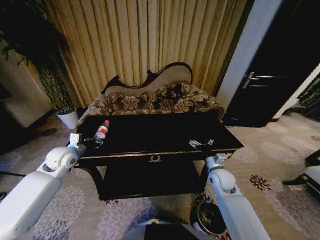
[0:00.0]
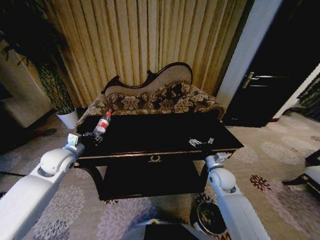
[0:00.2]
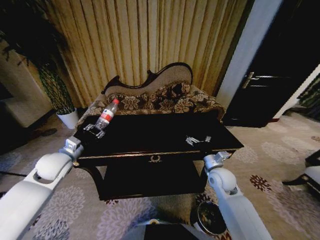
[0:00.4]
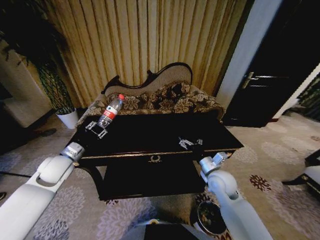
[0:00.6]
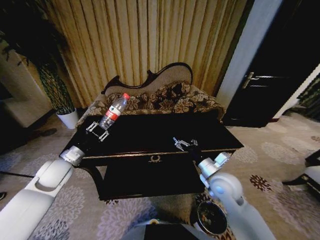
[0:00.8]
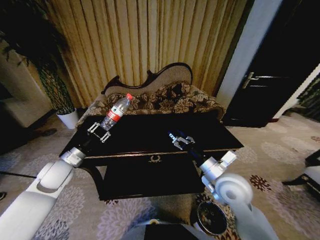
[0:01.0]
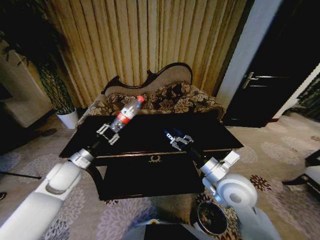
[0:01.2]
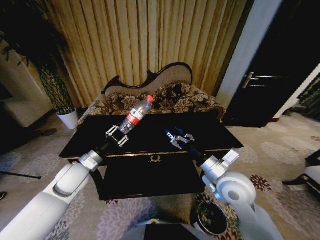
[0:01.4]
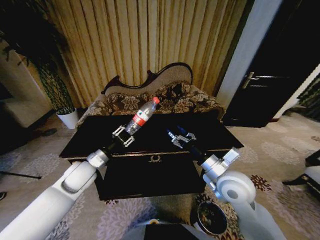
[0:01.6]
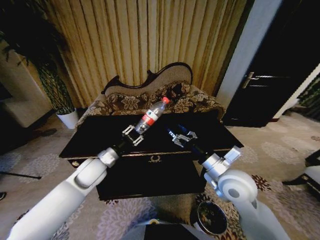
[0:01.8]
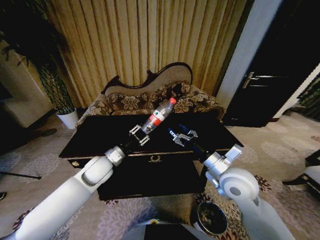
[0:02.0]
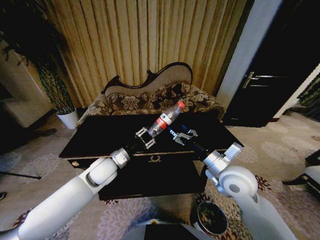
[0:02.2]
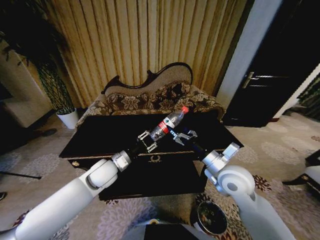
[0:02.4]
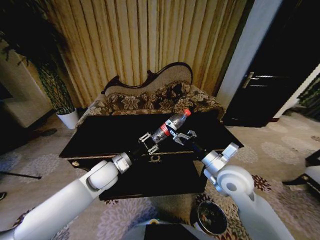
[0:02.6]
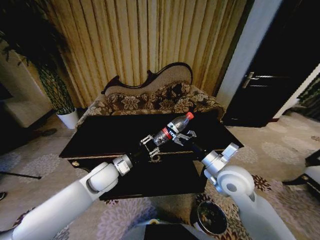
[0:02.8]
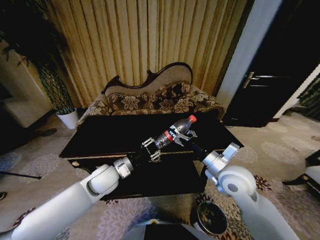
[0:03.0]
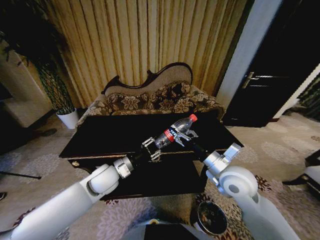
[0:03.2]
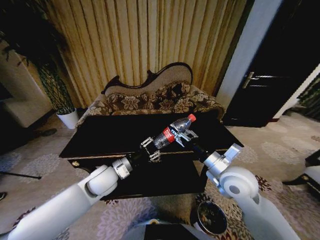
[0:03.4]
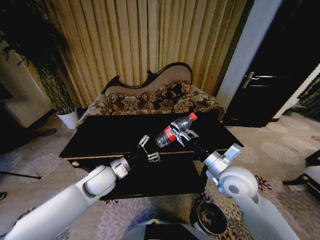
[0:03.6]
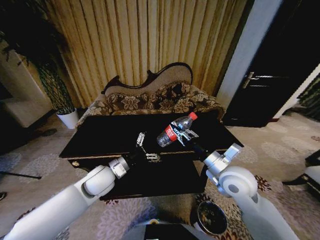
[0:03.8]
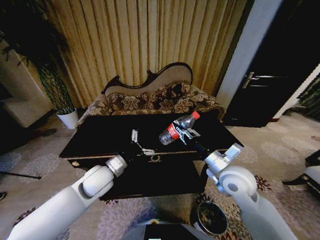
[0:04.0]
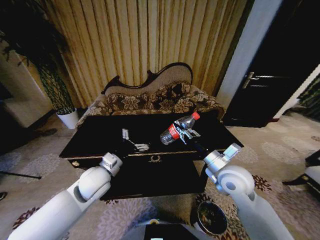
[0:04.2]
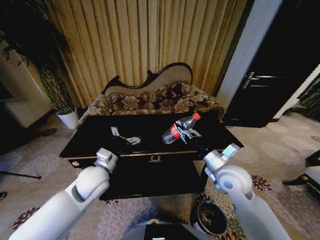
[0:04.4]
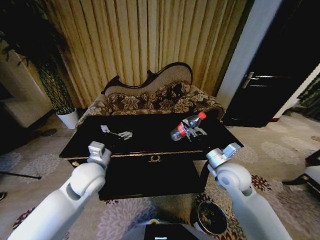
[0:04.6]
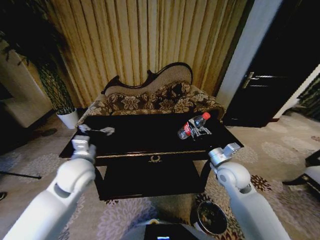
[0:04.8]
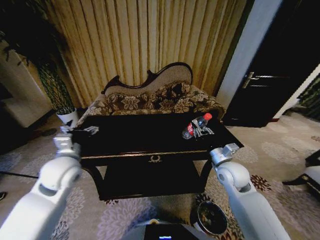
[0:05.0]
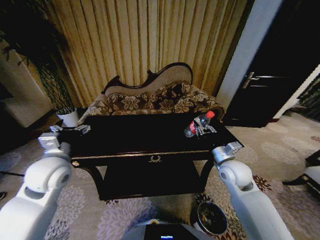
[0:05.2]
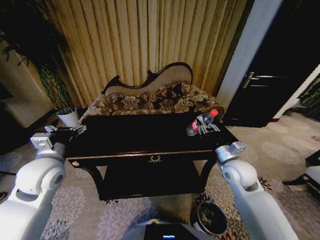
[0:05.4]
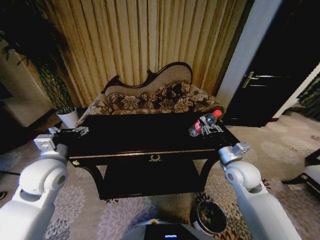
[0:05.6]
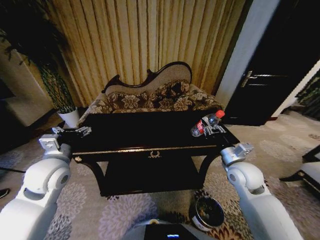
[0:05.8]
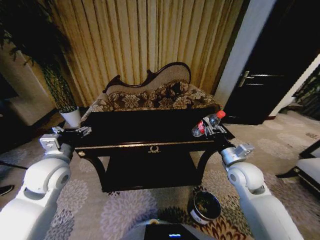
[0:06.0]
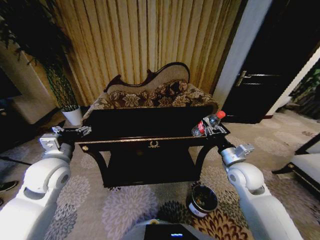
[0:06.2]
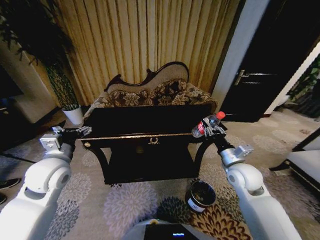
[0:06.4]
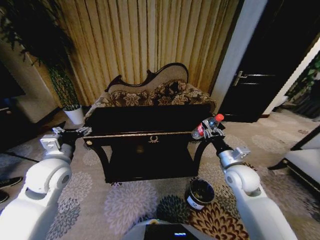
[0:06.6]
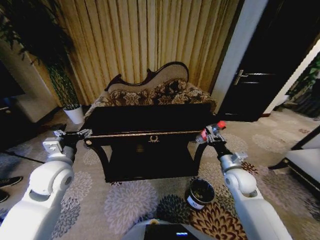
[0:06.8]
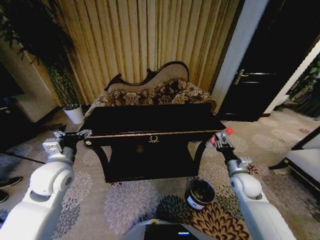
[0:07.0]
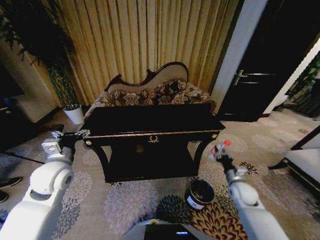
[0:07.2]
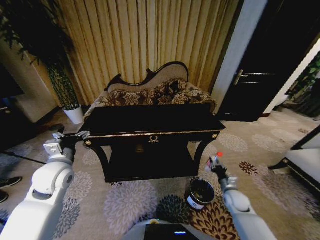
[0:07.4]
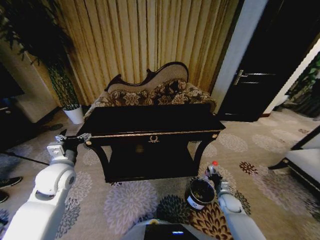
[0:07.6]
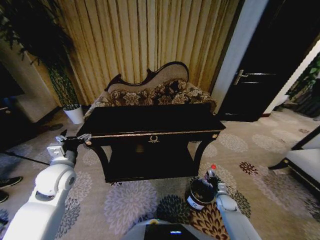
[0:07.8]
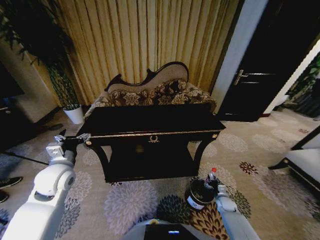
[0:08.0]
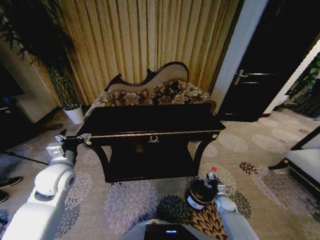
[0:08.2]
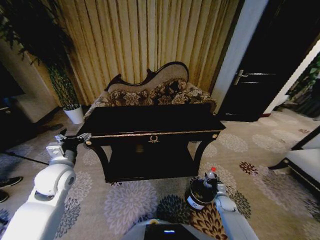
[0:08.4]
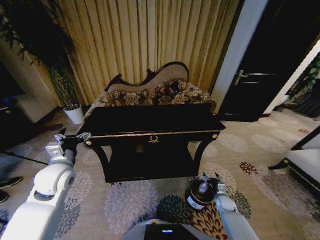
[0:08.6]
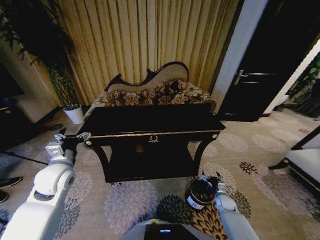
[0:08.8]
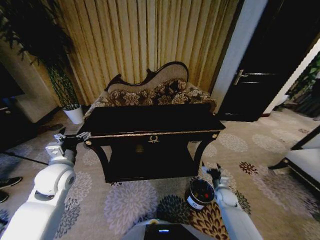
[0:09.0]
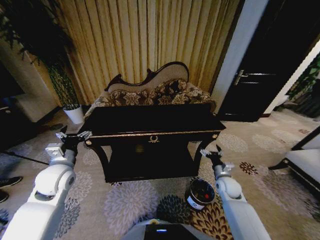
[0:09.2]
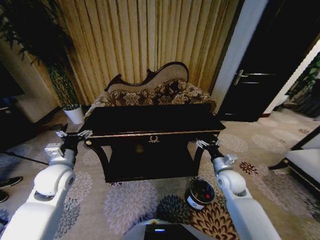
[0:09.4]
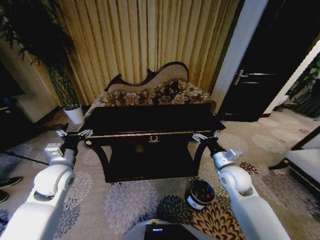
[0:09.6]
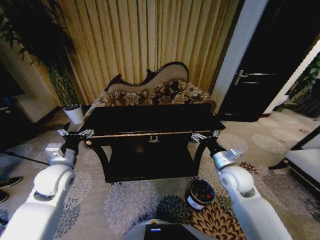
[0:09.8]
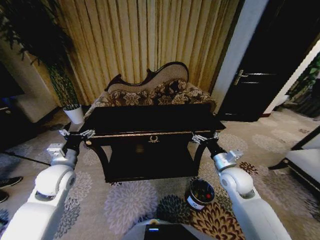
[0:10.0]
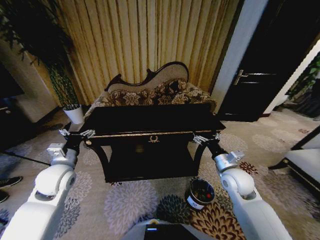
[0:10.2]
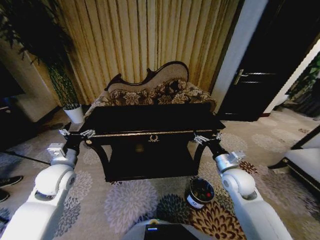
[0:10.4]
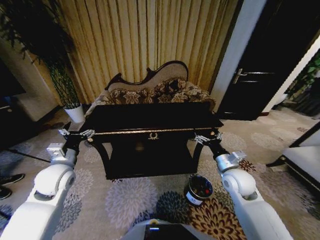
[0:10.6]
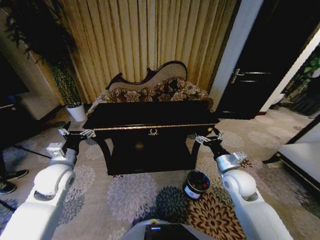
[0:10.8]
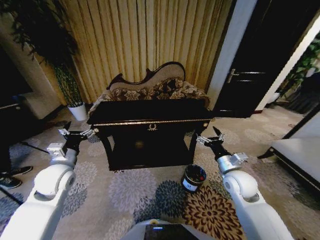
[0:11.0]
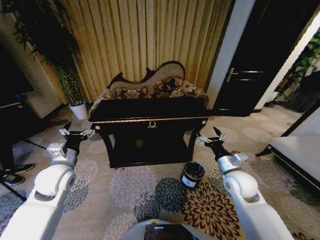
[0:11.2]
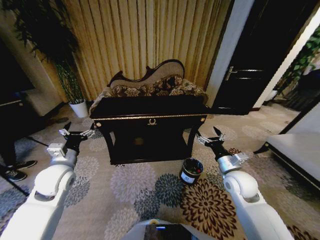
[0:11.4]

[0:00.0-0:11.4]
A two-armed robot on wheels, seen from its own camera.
Task of the whole recording: Move to the front of the table and place the trash on the table into the trash bin.
0:00.0 to 0:01.4: The left gripper goes about 10 cm to the right and backward, while the right gripper travels upward, backward and to the left by roughly 20 cm.
0:01.4 to 0:02.8: The left gripper moves to the right, some 10 cm.
0:02.8 to 0:04.2: The left gripper opens up. Meanwhile the right gripper closes.
0:04.2 to 0:05.6: The left gripper travels to the left and upward by some 15 cm. The right gripper moves to the right, some 5 cm.
0:05.6 to 0:07.2: The right gripper goes some 20 cm downward and to the right.
0:07.2 to 0:08.6: The right gripper heads downward, covering approximately 20 cm, and opens.
0:08.6 to 0:10.0: The right gripper is displaced upward by about 30 cm.

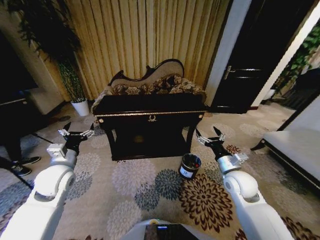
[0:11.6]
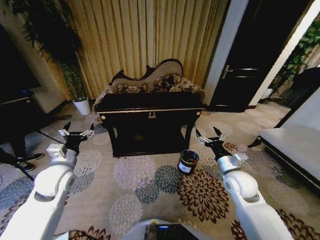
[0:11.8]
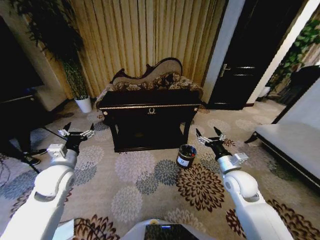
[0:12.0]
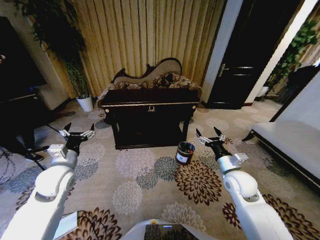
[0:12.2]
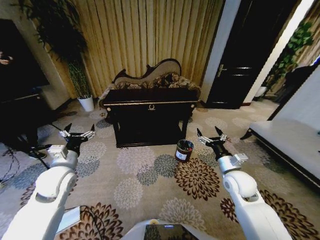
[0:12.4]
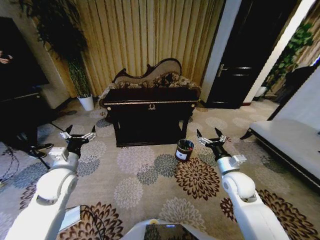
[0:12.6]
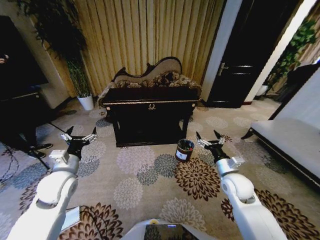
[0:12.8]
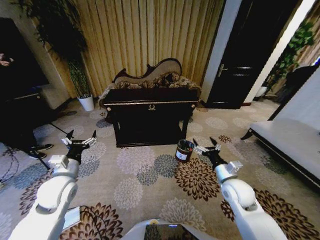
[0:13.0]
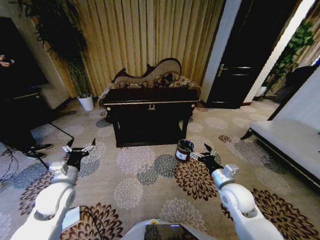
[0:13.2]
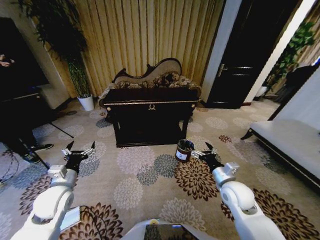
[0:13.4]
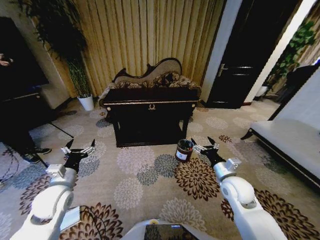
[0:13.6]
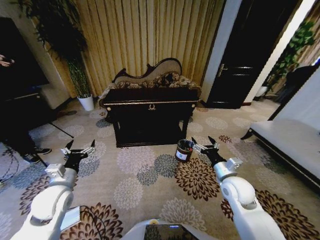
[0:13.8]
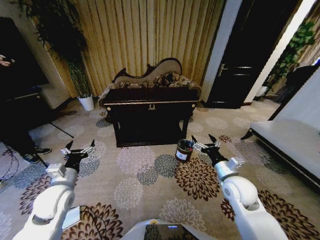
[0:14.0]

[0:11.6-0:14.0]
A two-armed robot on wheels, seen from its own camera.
Task of the whole recording: Move to the front of the table and place the trash on the table into the trash bin.
0:12.8 to 0:14.0: The grippers make only small movements.

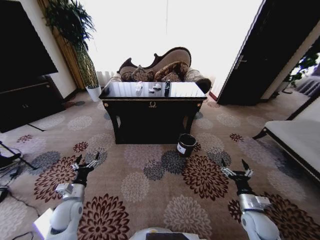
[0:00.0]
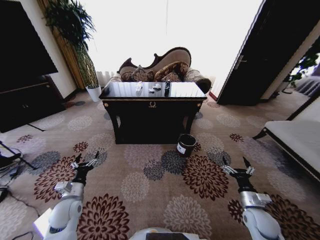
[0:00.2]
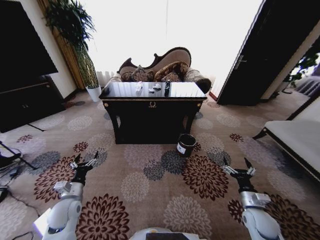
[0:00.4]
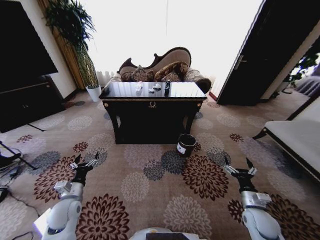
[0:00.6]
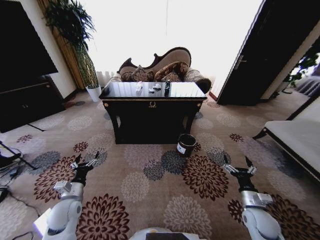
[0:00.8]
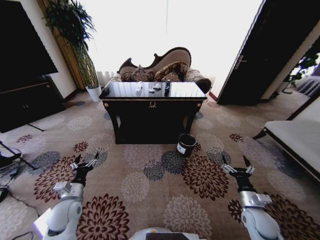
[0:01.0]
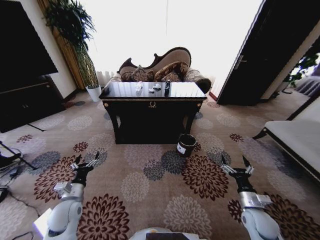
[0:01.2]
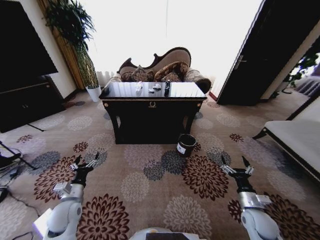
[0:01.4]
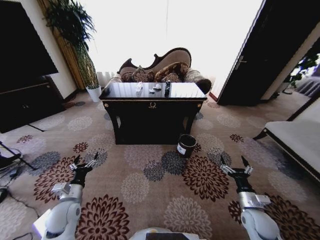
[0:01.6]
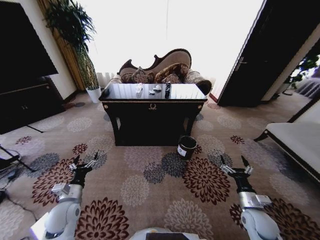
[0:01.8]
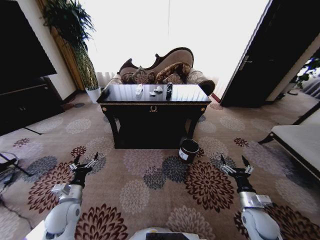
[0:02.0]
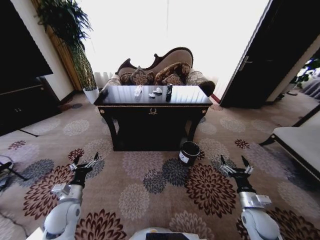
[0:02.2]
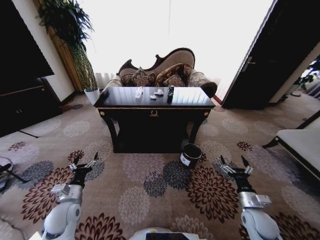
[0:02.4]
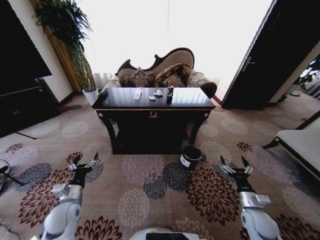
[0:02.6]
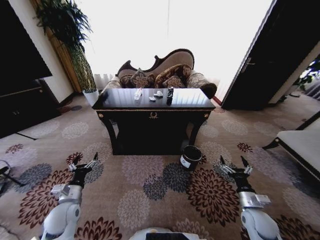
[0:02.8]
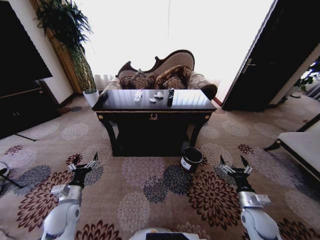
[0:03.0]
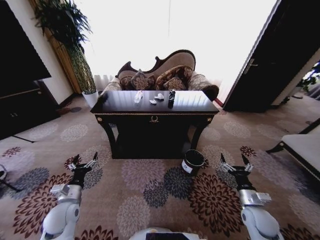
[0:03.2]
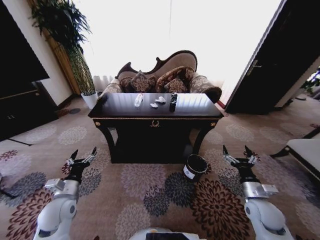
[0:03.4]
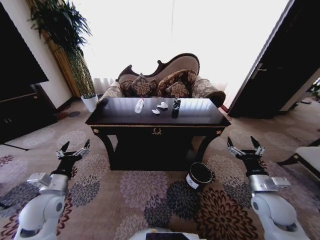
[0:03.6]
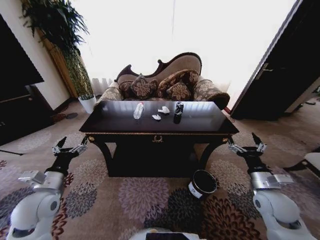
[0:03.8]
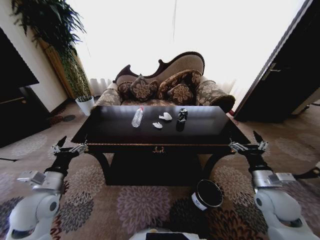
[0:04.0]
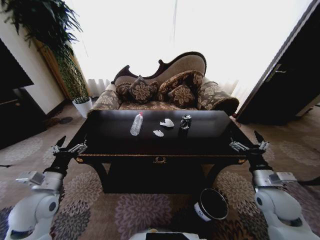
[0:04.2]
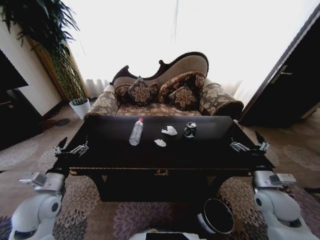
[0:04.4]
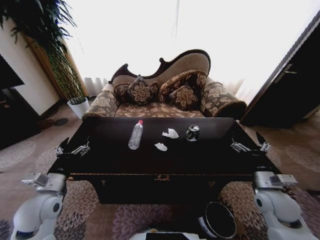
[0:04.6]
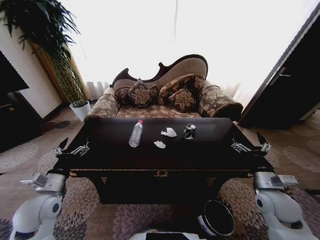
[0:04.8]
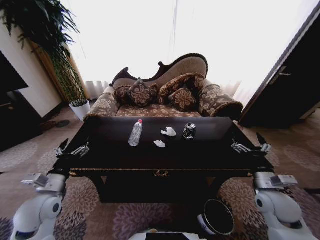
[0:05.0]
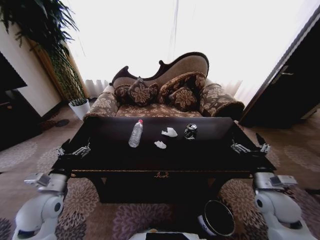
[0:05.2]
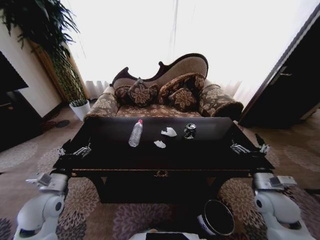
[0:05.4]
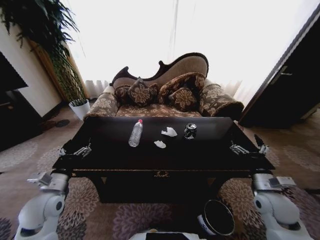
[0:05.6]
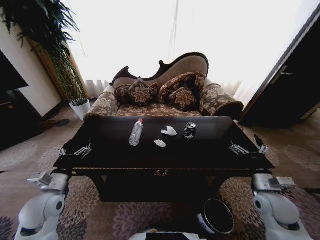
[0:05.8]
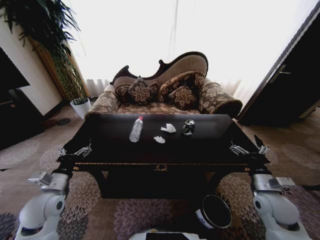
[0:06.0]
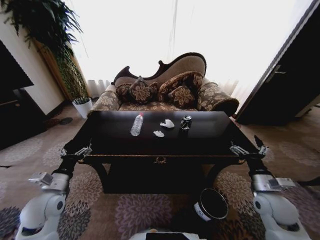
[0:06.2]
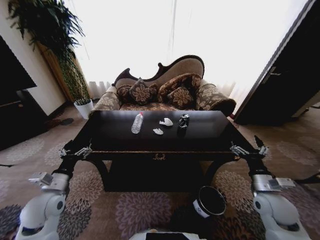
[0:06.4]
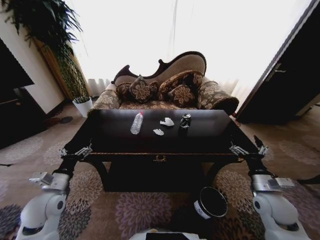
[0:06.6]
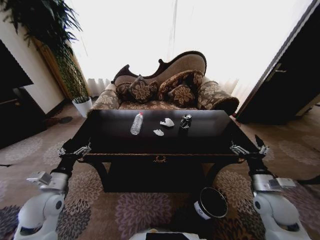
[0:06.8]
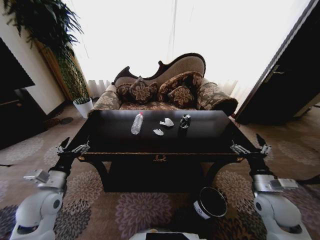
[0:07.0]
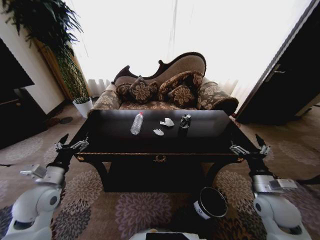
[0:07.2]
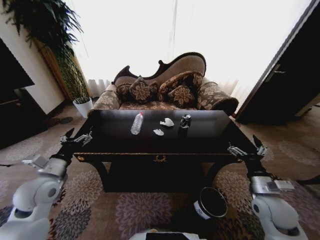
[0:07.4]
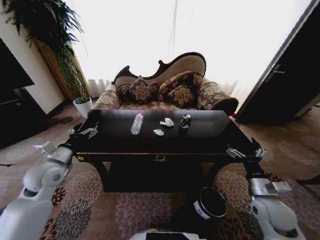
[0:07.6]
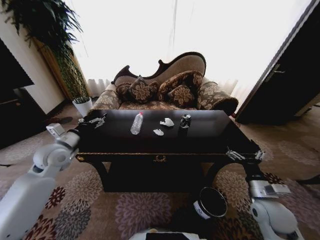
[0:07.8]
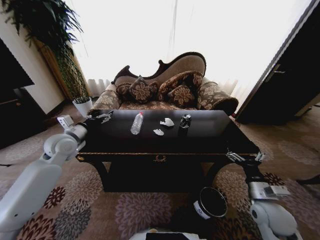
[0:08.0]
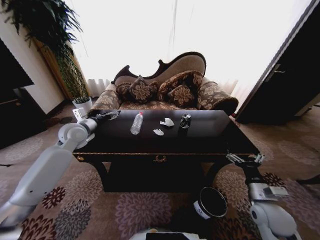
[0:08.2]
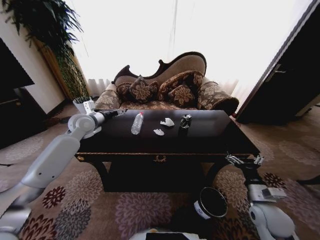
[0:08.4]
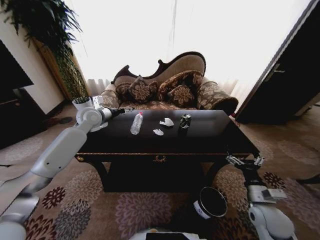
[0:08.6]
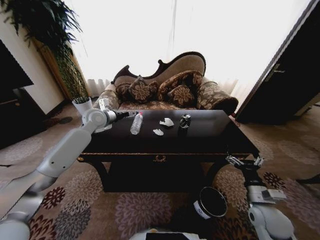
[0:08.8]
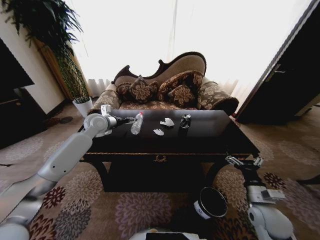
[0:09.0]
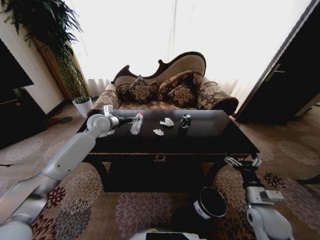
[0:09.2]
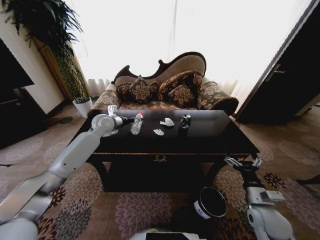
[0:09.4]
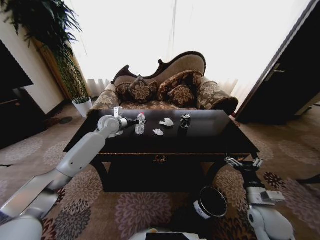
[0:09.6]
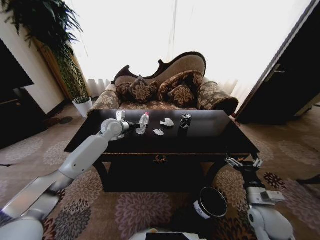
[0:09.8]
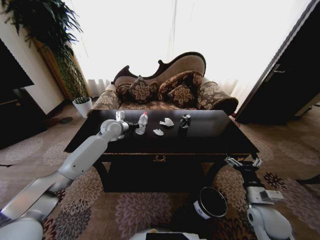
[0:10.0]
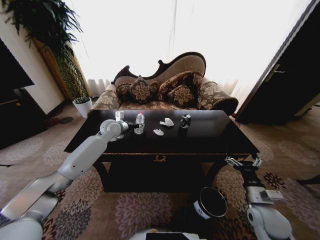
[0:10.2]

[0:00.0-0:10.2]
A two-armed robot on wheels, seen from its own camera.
Task of the whole recording: Move to the front of the table and place the trash on the table into the trash bin.
0:03.0 to 0:04.4: The two grippers go roughly 10 cm upward.
0:04.4 to 0:05.8: The grippers stay close to where they were, moving slightly.
0:07.2 to 0:08.8: The left gripper shifts approximately 30 cm forward.
0:08.8 to 0:10.2: The left gripper is displaced downward by some 5 cm.
